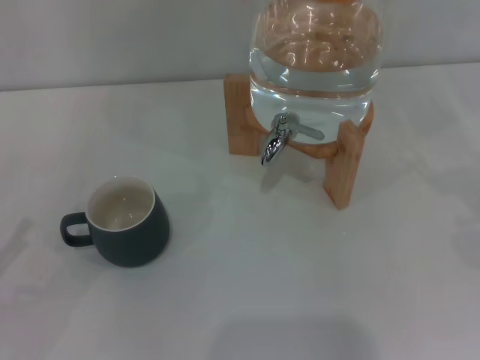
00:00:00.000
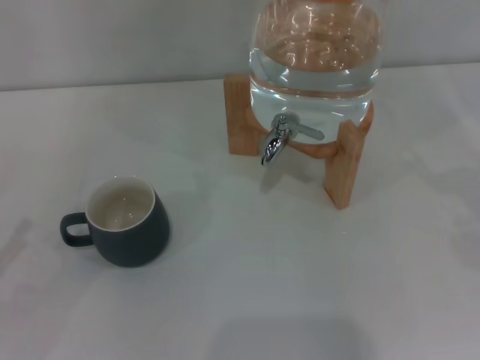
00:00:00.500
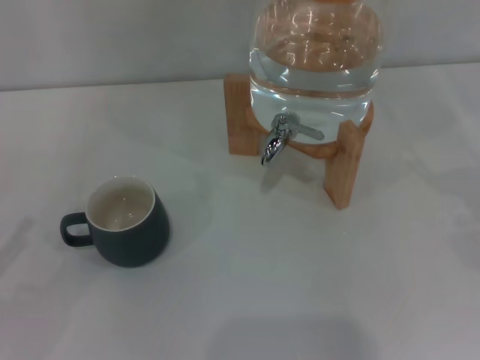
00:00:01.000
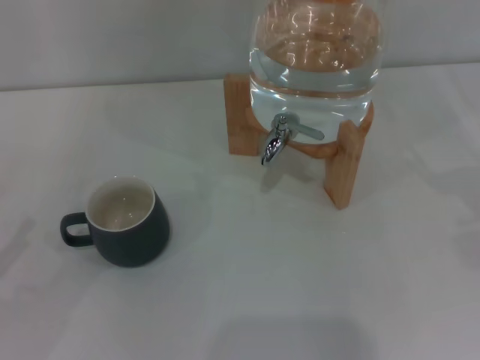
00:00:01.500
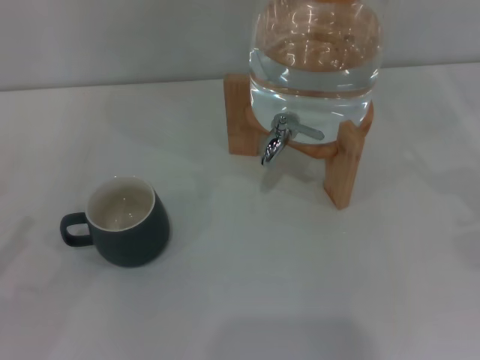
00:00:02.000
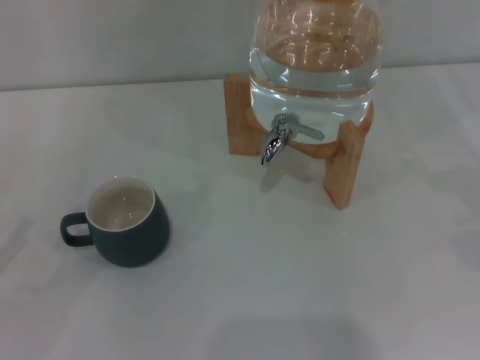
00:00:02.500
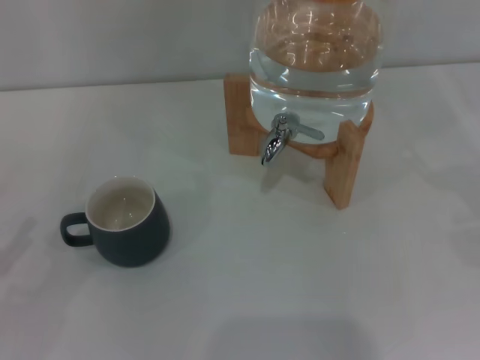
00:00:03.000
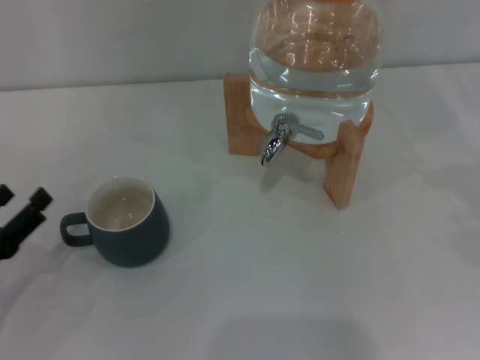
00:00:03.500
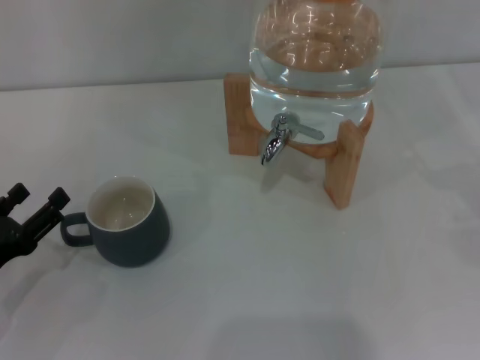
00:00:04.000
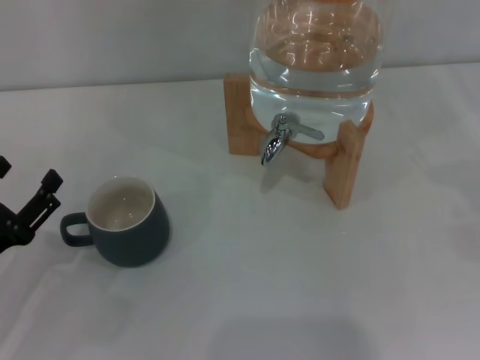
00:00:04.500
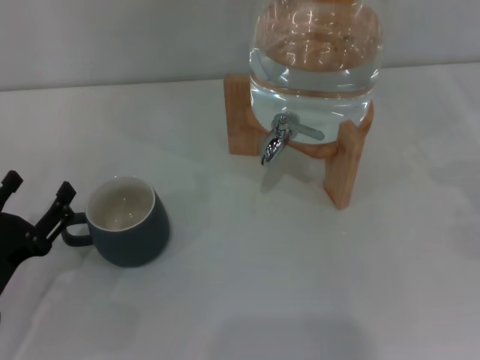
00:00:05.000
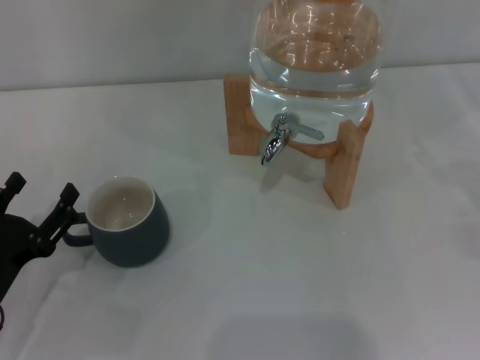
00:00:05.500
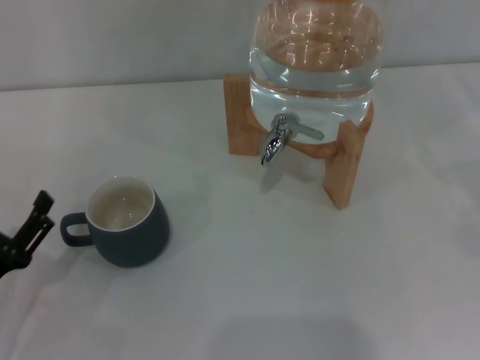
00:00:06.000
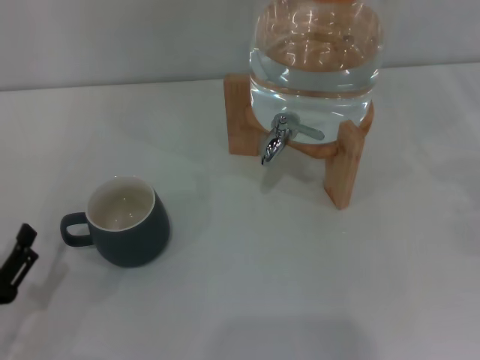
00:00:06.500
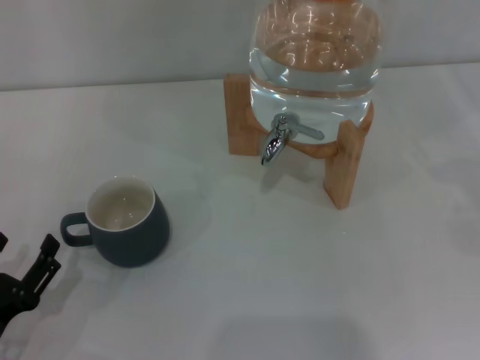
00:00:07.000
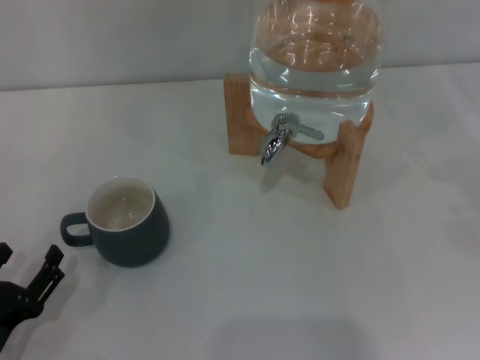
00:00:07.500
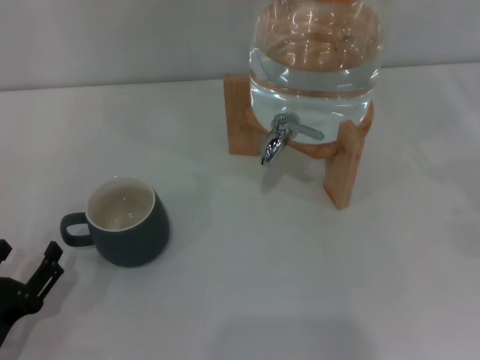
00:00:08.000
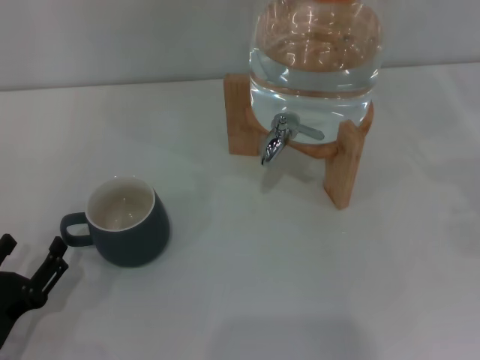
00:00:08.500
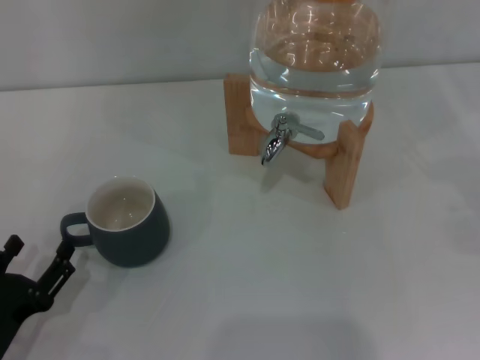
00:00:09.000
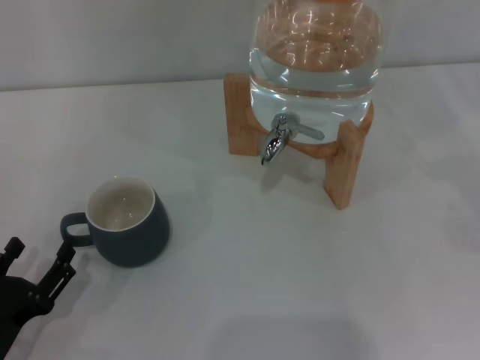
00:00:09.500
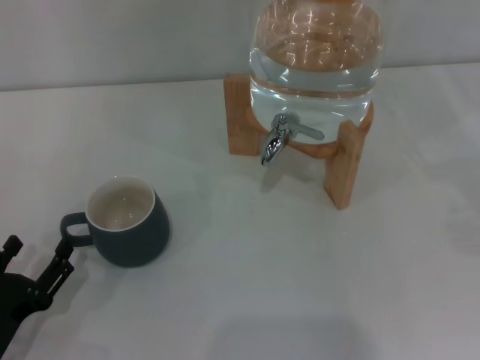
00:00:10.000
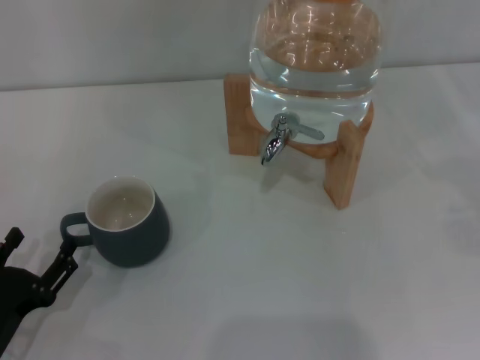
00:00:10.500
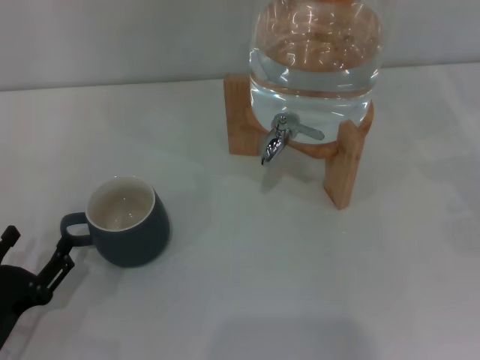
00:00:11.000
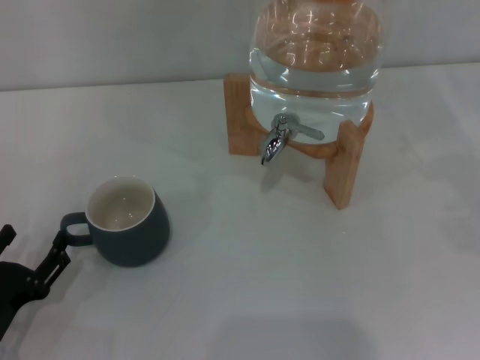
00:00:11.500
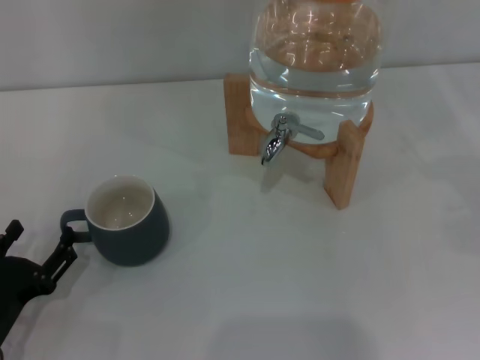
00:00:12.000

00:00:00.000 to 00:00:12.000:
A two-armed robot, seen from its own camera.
Task of the whole recording: the left gripper pick up the black cup and place it horizontally under the faucet, the right gripper turn on the faucet to fill the cup, and then turn off the faucet.
00:00:00.000 to 00:00:02.000: The two grippers keep their place.
00:00:02.000 to 00:00:04.000: The left gripper heads to the right and downward, covering roughly 10 cm.
00:00:04.000 to 00:00:06.000: The grippers make only small movements.
00:00:06.000 to 00:00:08.000: The grippers stay close to where they were, moving slightly.
00:00:08.000 to 00:00:10.000: Both grippers stay put.
00:00:10.000 to 00:00:12.000: The grippers stay close to where they were, moving slightly.

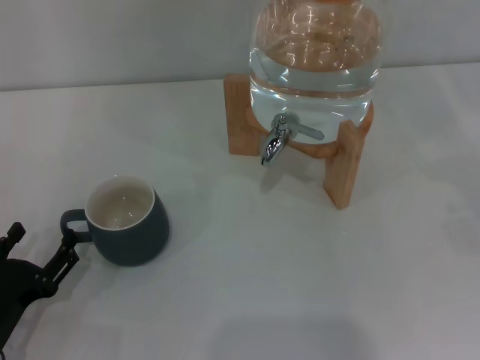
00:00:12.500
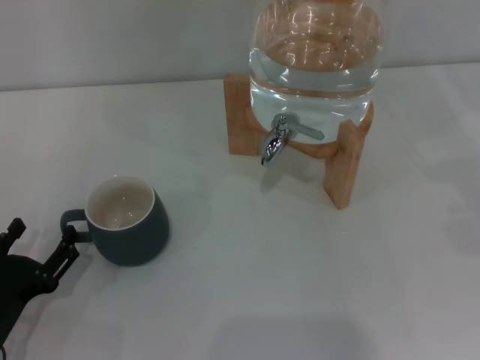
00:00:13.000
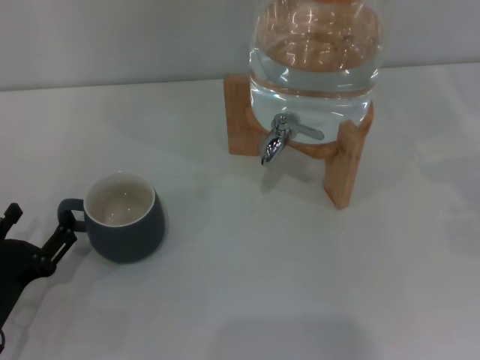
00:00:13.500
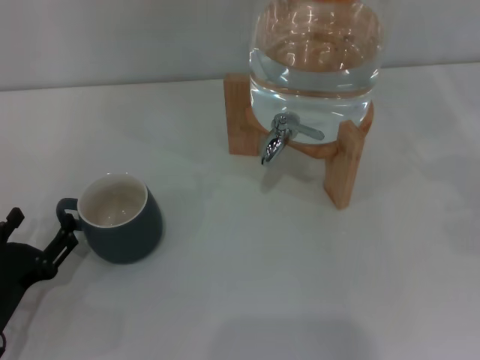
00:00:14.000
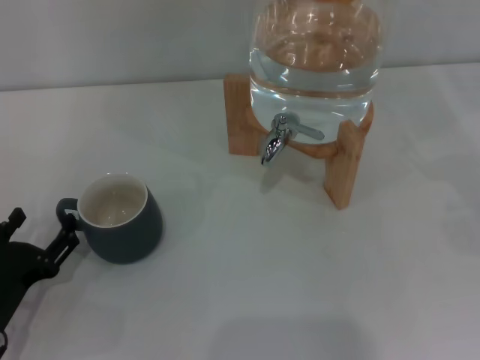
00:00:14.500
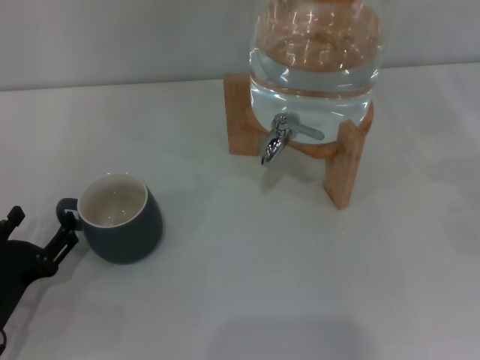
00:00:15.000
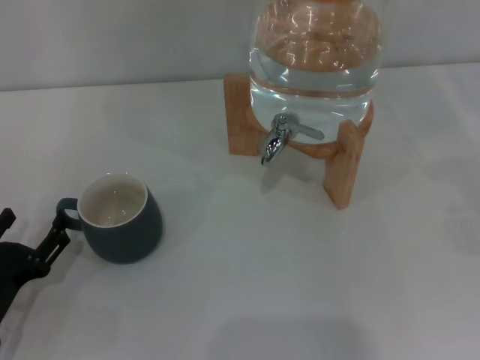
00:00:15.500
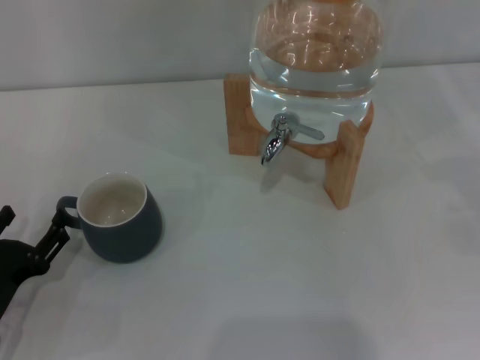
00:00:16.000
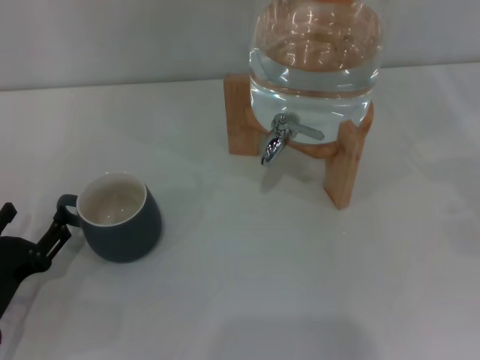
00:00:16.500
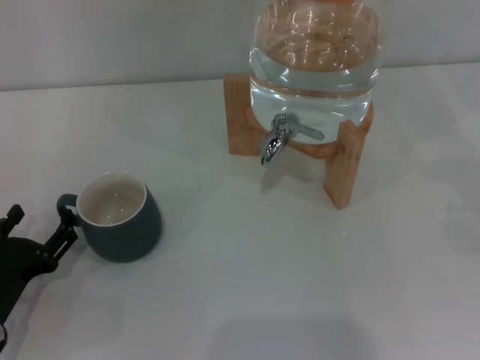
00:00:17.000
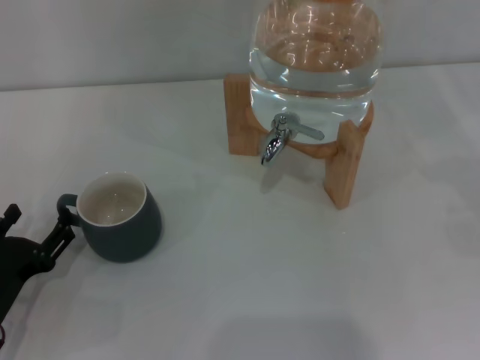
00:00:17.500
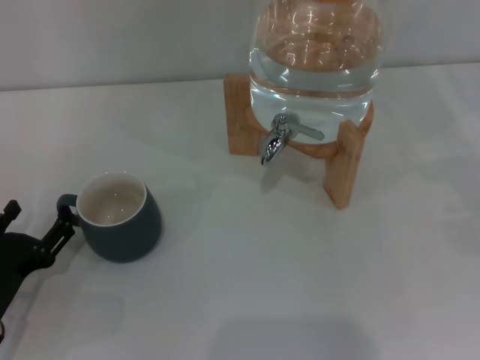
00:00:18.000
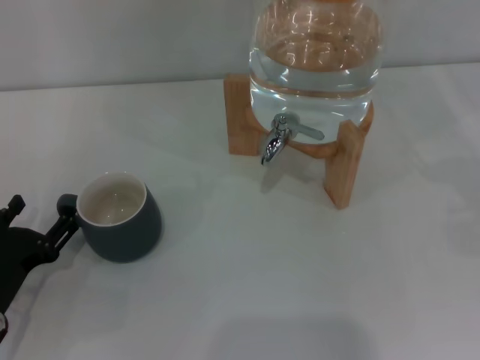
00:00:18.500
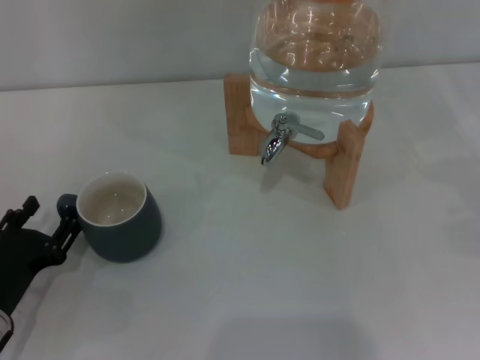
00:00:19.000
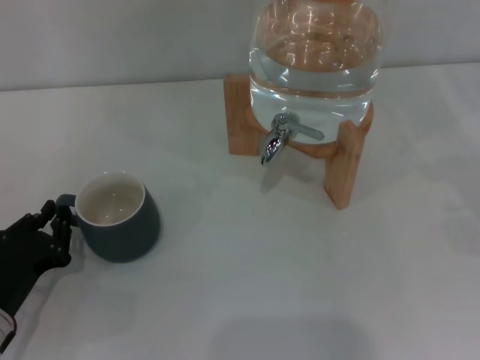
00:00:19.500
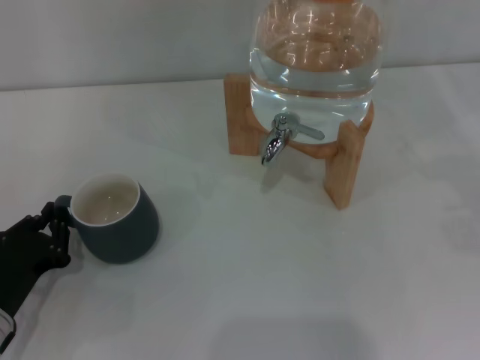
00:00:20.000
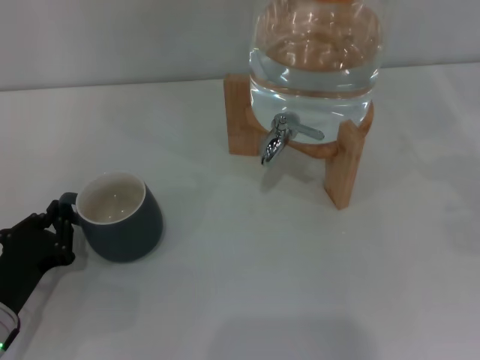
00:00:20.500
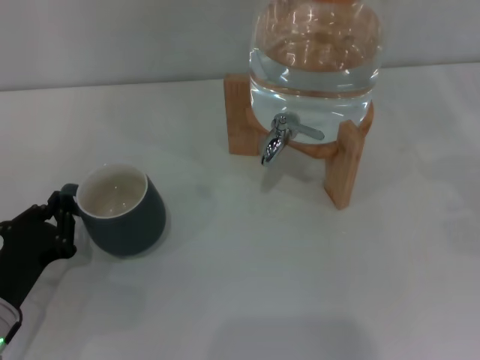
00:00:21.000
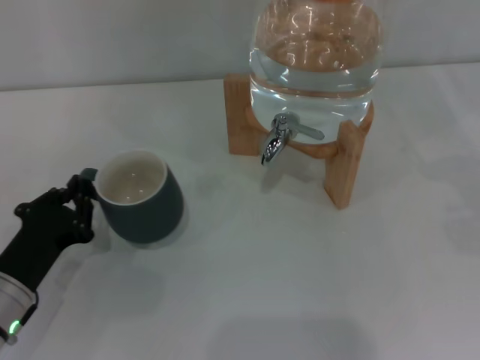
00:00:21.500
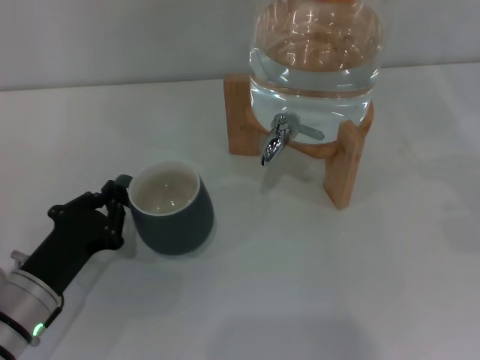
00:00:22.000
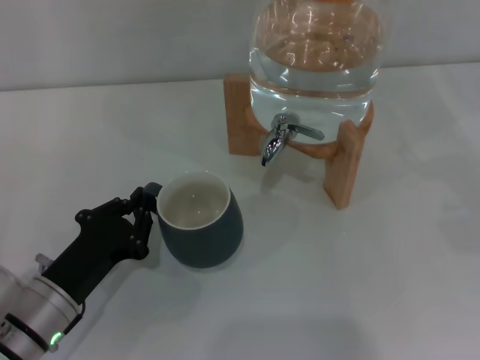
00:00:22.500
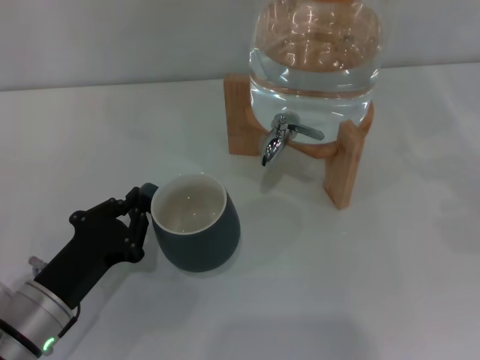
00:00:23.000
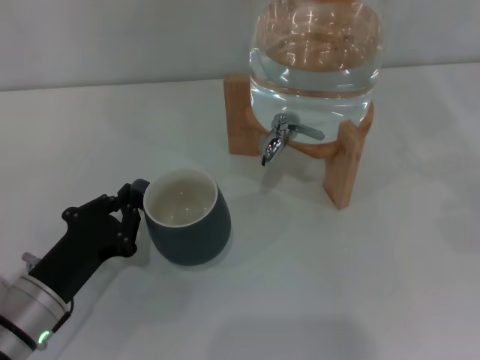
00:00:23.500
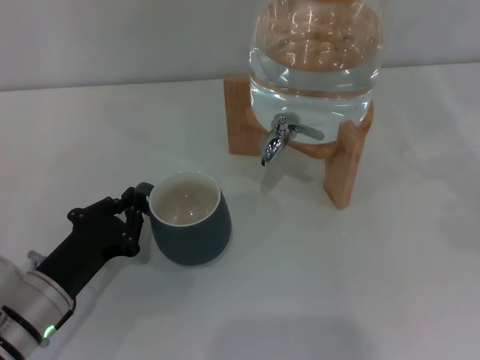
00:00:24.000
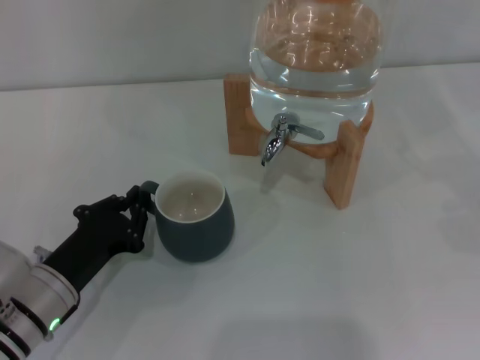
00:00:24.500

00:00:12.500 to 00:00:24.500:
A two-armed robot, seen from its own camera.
Task of the whole recording: the left gripper pick up the black cup and place it horizontally under the faucet, the right gripper turn on the faucet to fill the cup, and then turn off the faucet.
00:00:12.500 to 00:00:14.500: The grippers make only small movements.
00:00:14.500 to 00:00:16.500: Both grippers stay about where they are.
00:00:16.500 to 00:00:18.500: Both grippers stay about where they are.
00:00:18.500 to 00:00:20.500: The left gripper closes up.
00:00:20.500 to 00:00:22.500: The left gripper heads to the right, covering roughly 5 cm.
00:00:22.500 to 00:00:24.500: The grippers move only a little.

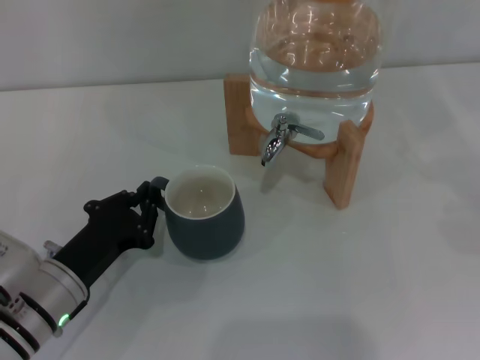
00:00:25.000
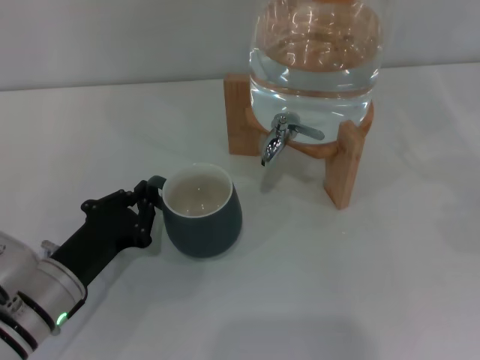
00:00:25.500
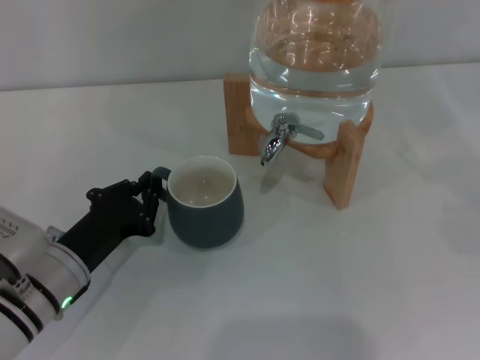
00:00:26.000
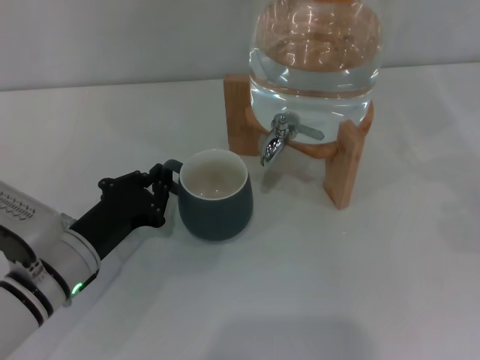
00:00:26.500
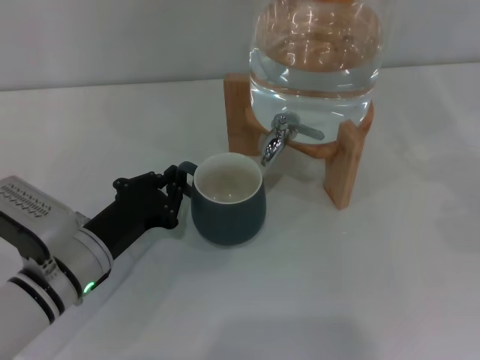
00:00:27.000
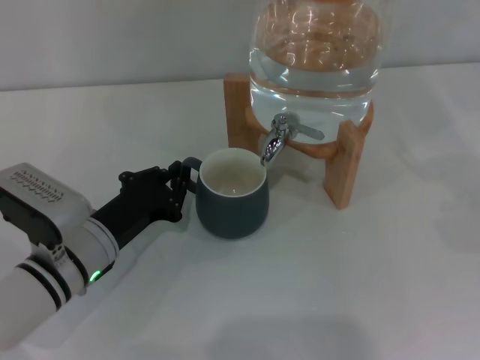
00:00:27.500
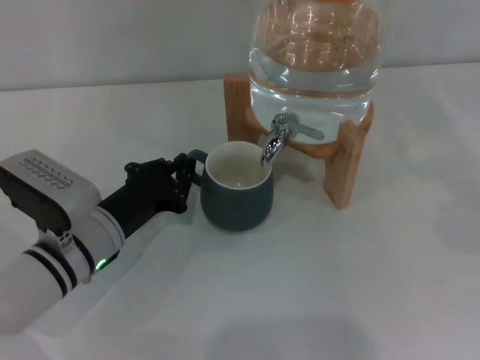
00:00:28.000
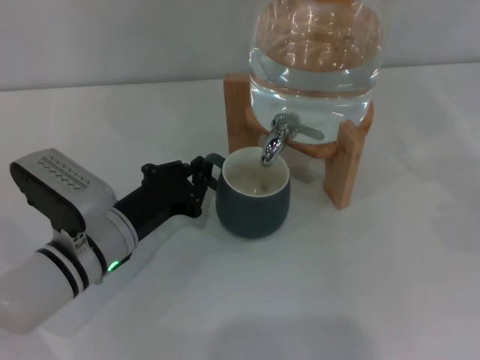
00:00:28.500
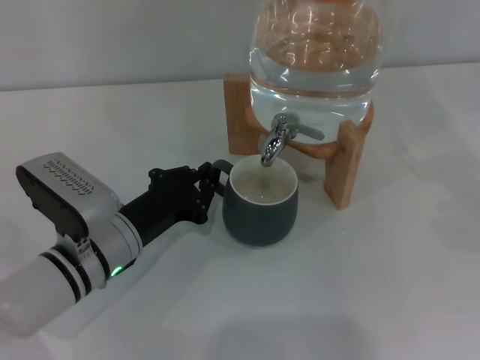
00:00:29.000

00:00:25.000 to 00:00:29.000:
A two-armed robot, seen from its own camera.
Task of the whole recording: the left gripper pick up the black cup and place it horizontally under the faucet, the right gripper turn on the faucet to fill the cup, and then turn off the faucet.
00:00:25.000 to 00:00:27.000: The grippers stay close to where they were, moving slightly.
00:00:27.000 to 00:00:29.000: The grippers move only a little.
